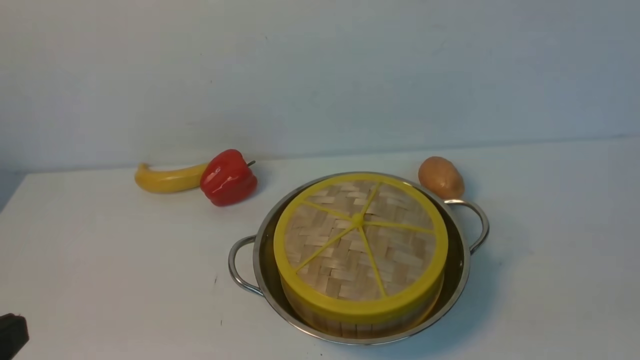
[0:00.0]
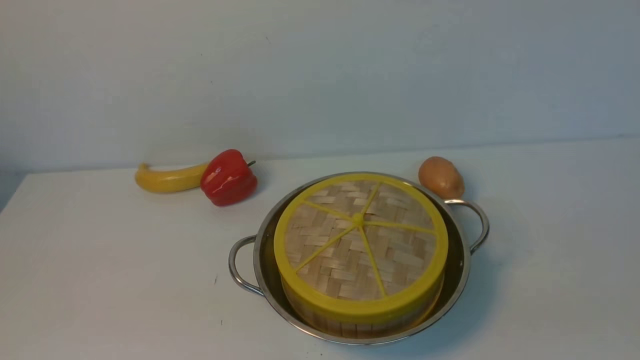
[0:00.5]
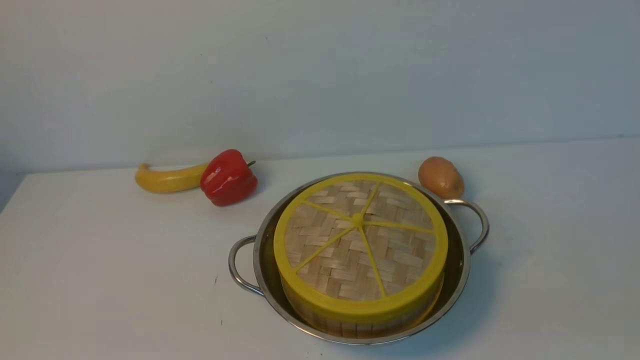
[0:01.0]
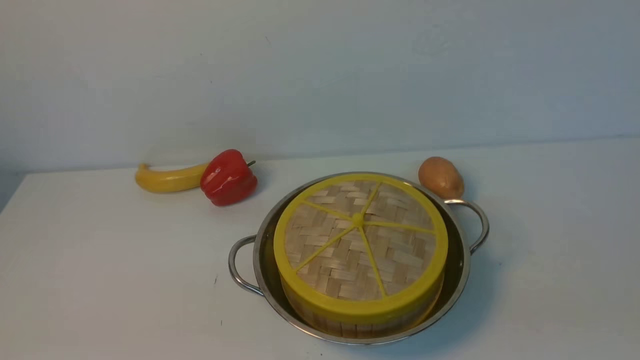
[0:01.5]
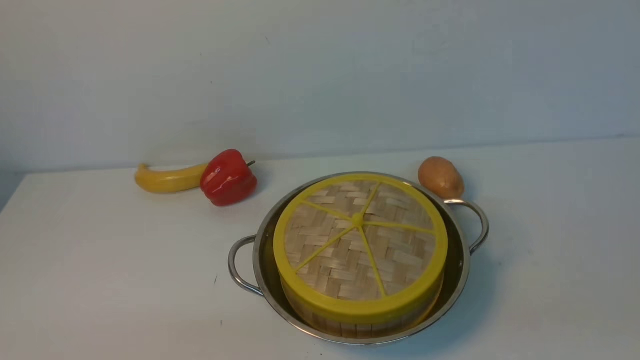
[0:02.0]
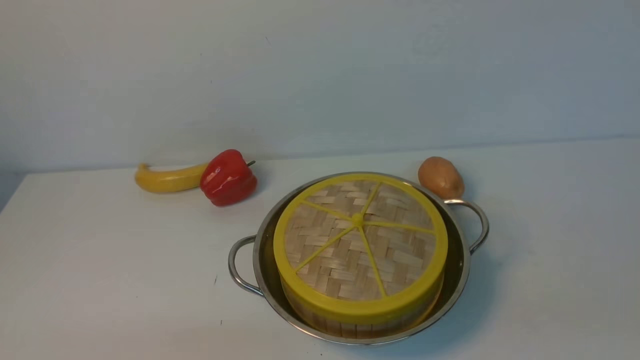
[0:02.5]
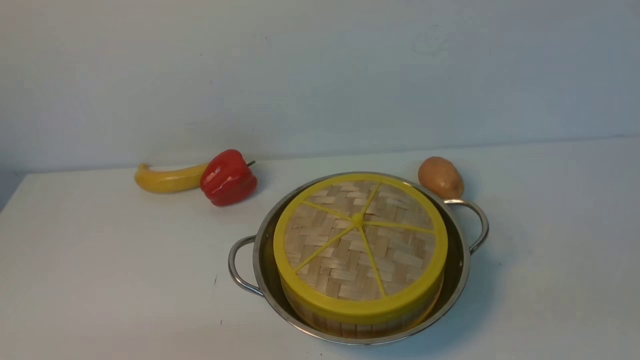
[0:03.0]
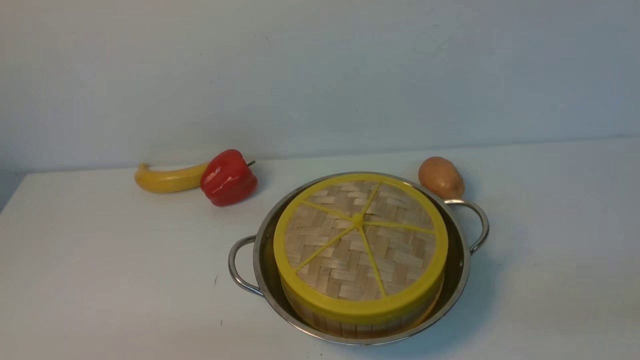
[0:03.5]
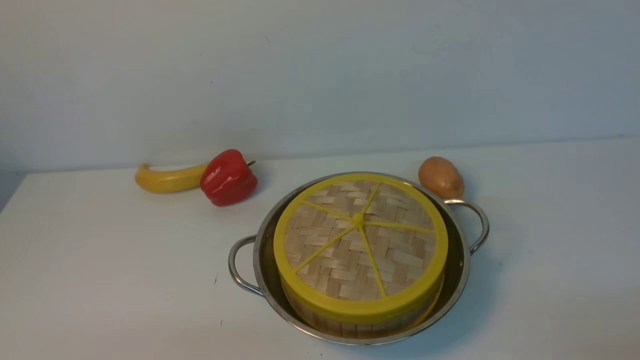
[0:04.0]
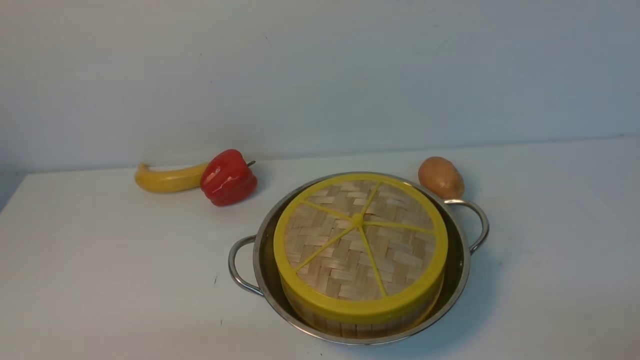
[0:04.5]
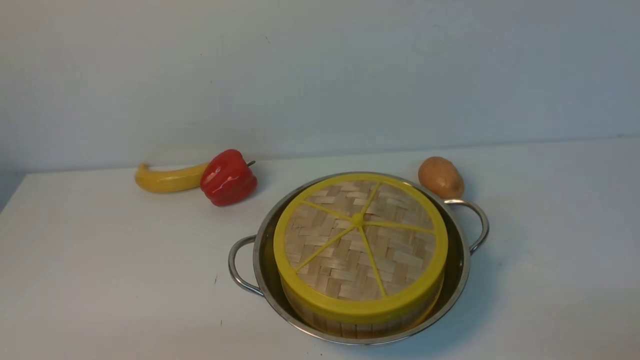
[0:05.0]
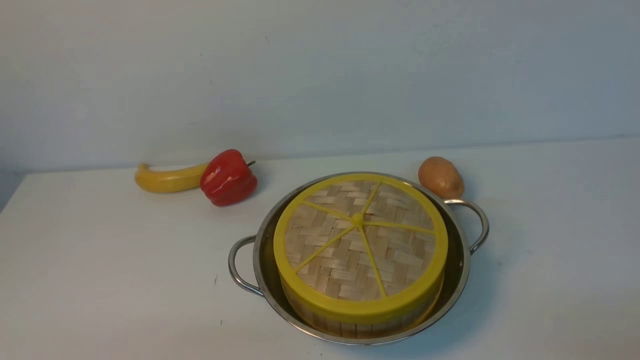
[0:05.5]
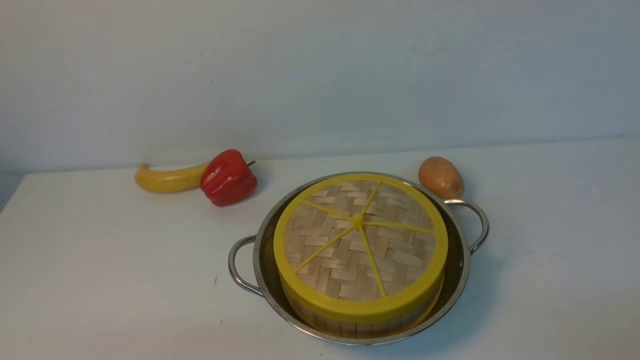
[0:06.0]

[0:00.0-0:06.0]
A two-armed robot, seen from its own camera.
Task of the whole recording: place the steamer in the pot on the white table, and put the lid on the steamer.
0:04.0 to 0:06.0: Both grippers stay put.

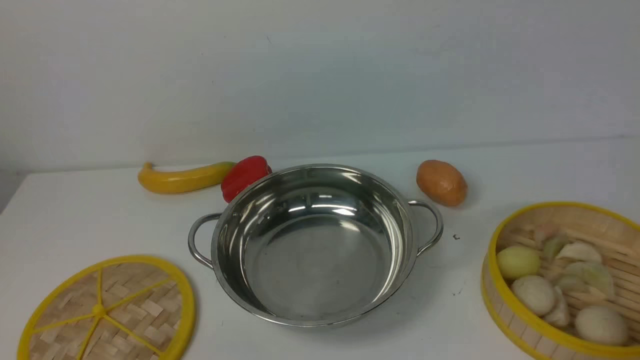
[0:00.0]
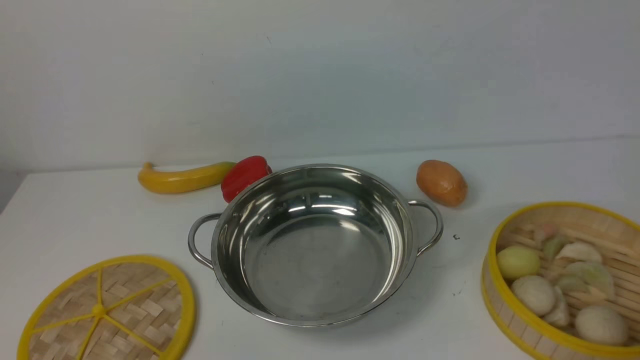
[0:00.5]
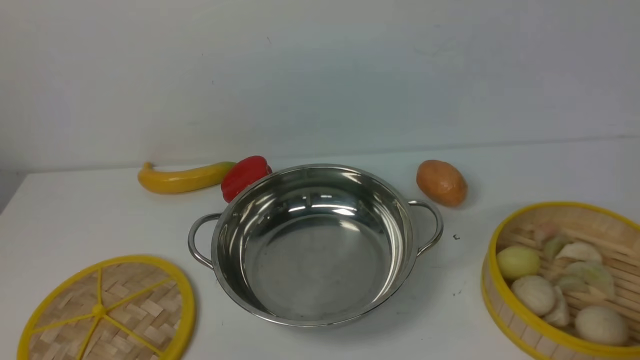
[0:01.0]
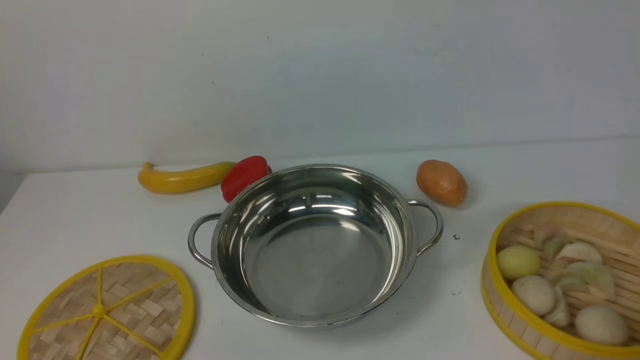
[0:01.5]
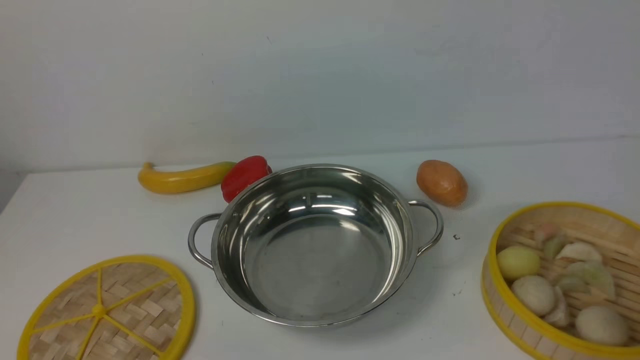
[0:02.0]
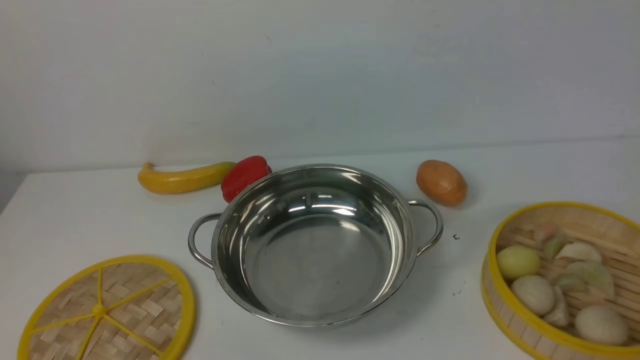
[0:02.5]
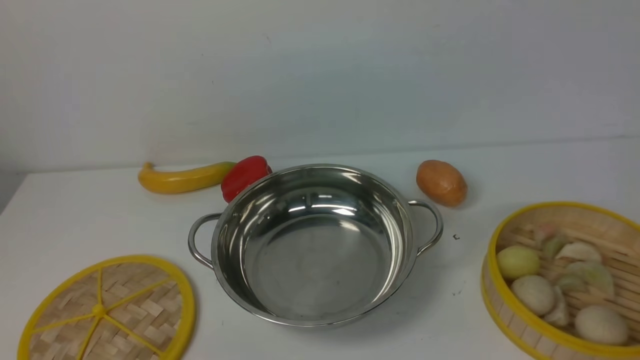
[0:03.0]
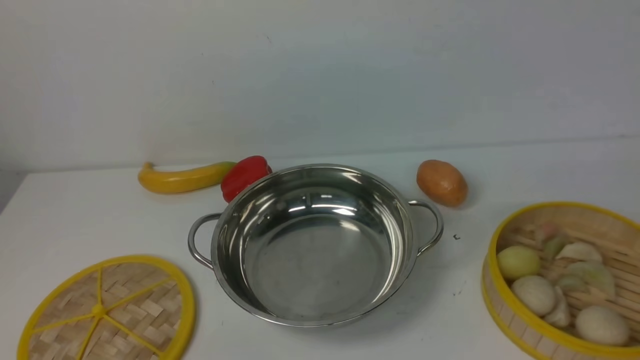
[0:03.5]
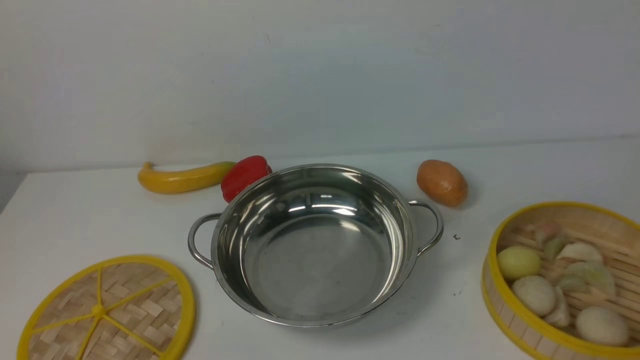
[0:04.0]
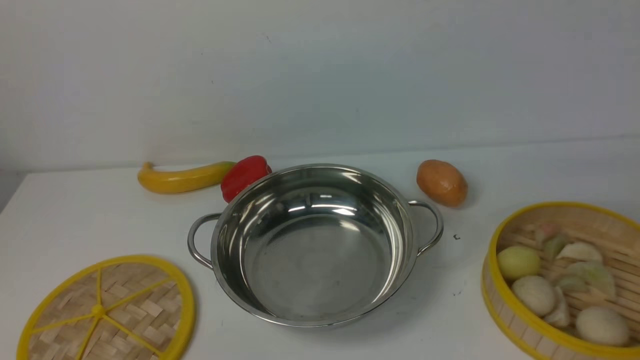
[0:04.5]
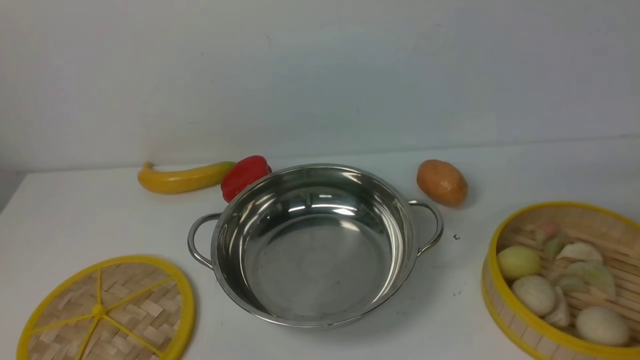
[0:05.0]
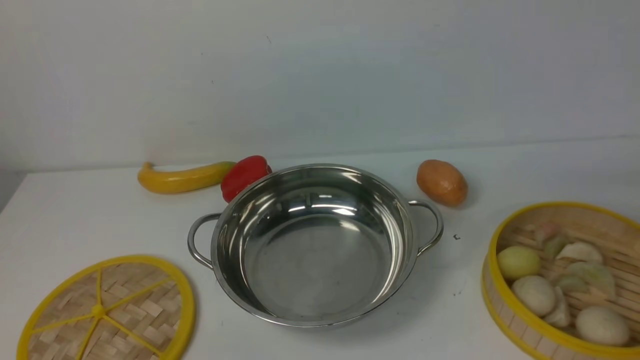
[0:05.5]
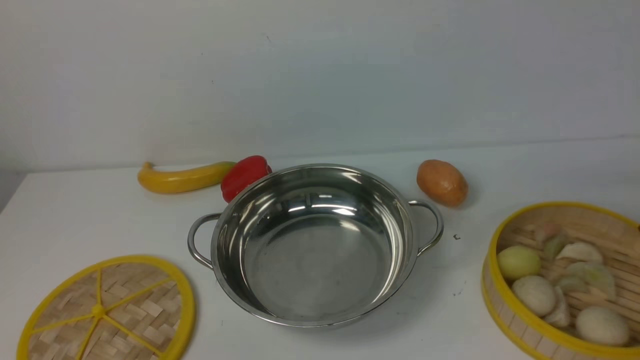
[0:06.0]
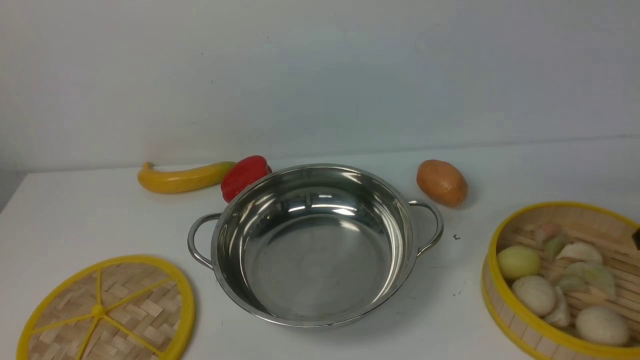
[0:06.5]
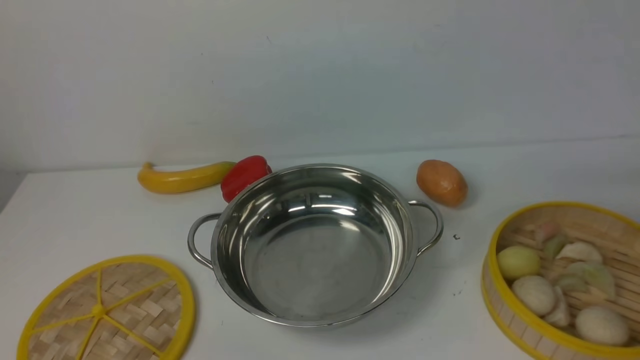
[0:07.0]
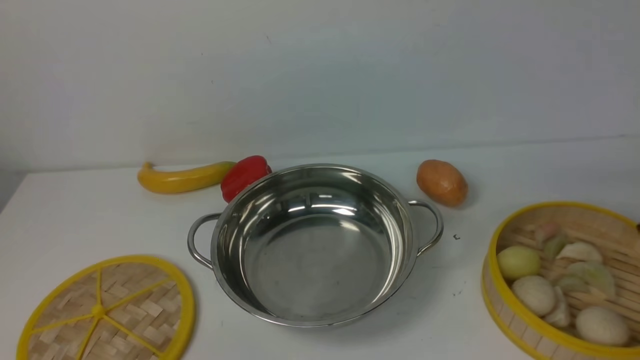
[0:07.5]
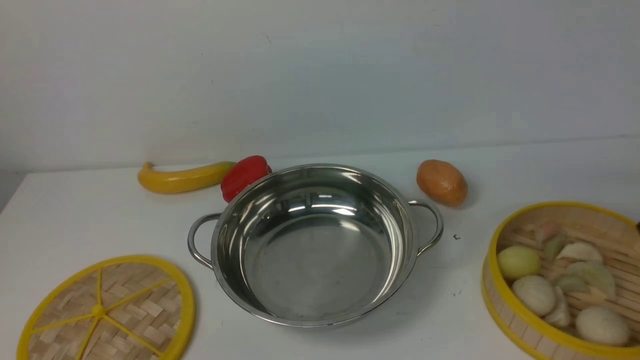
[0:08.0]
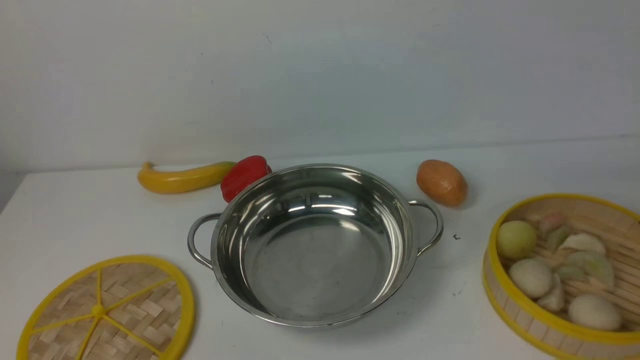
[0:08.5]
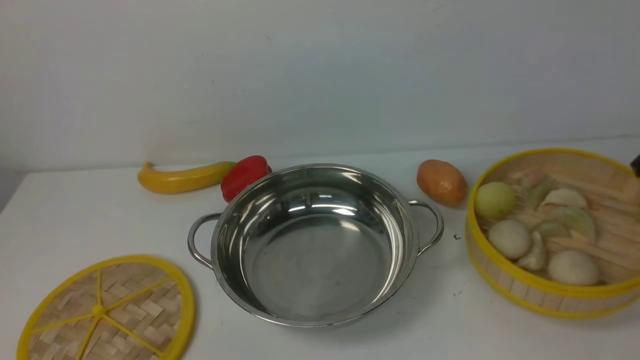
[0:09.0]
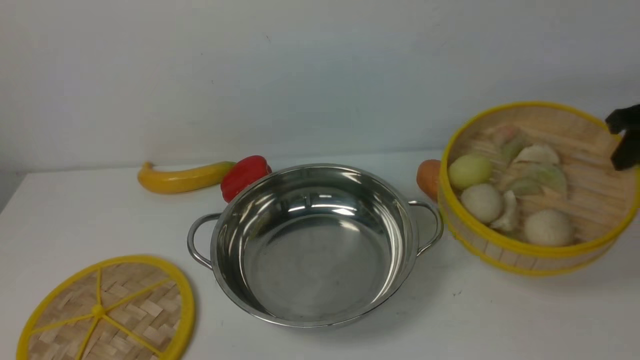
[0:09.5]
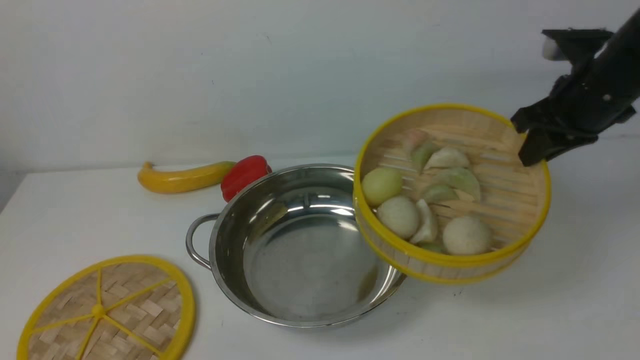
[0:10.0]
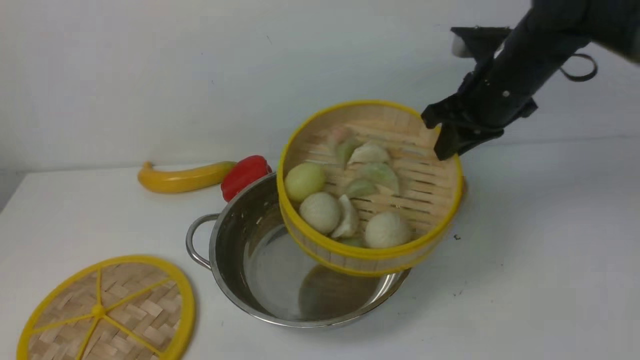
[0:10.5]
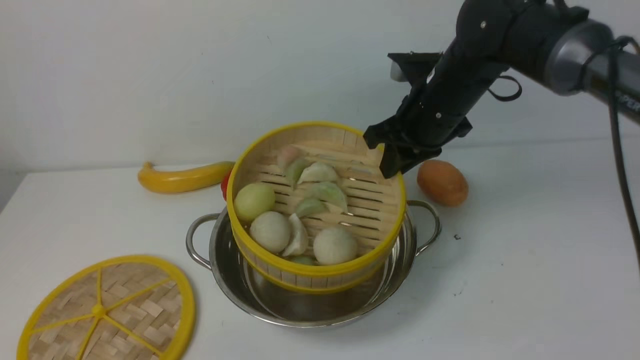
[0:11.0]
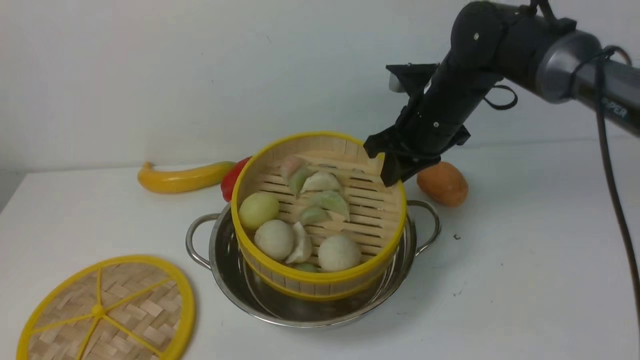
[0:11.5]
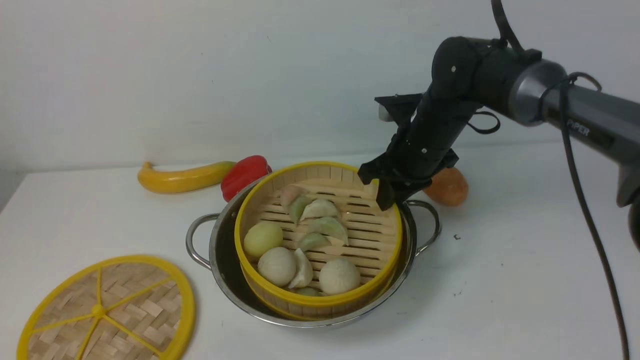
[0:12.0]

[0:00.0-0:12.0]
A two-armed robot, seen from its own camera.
Task of the whole recording: place the steamer in the pot on the white table, and put the lid on the steamer.
Step, 0:00.0 to 0:09.5: use the right arm to lift the steamer closest to it.
0:08.0 to 0:10.0: The right gripper is displaced to the left, upward and forward by about 20 cm.
0:10.0 to 0:12.0: The right gripper heads to the left and downward, covering approximately 15 cm.

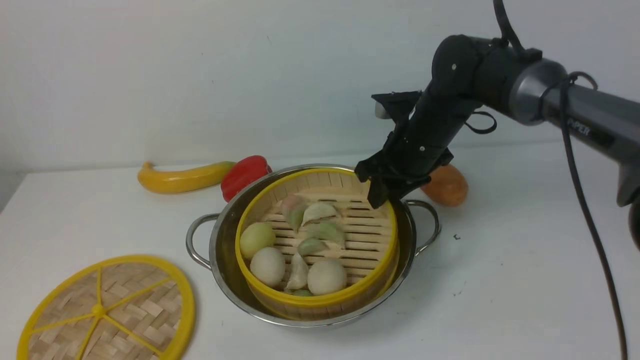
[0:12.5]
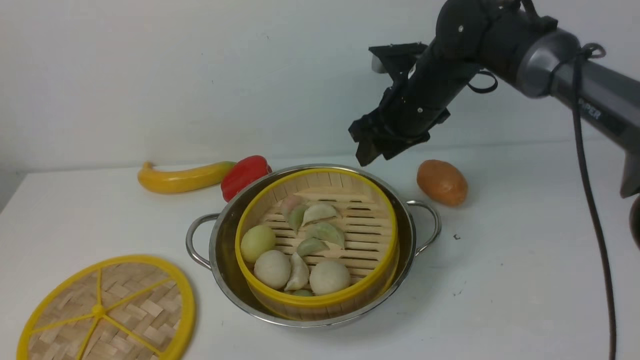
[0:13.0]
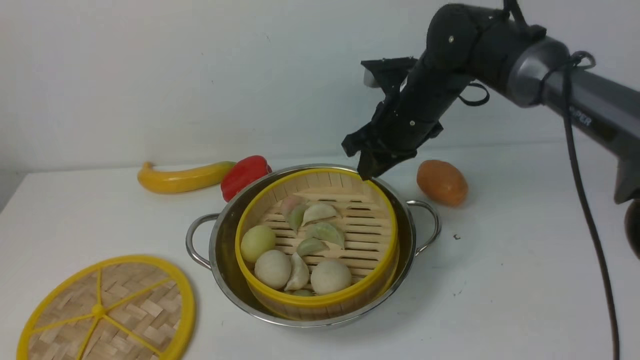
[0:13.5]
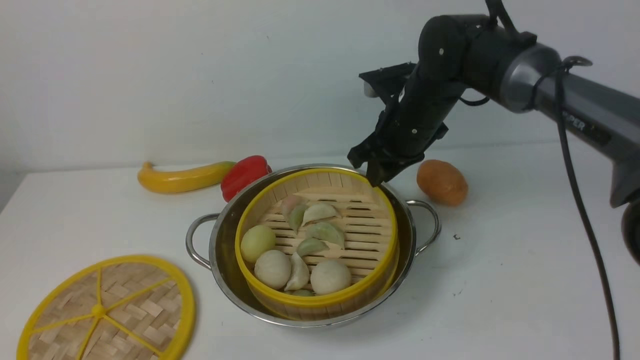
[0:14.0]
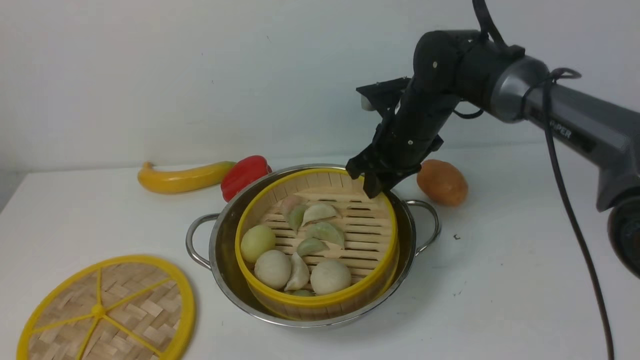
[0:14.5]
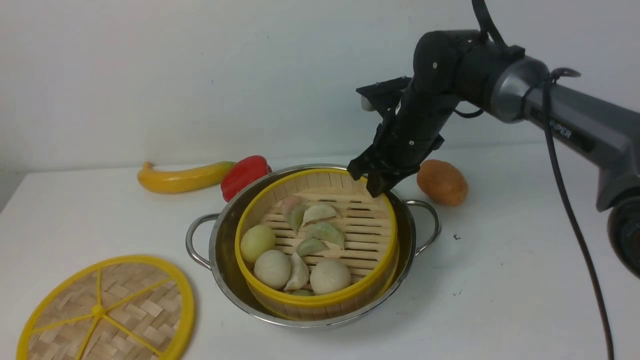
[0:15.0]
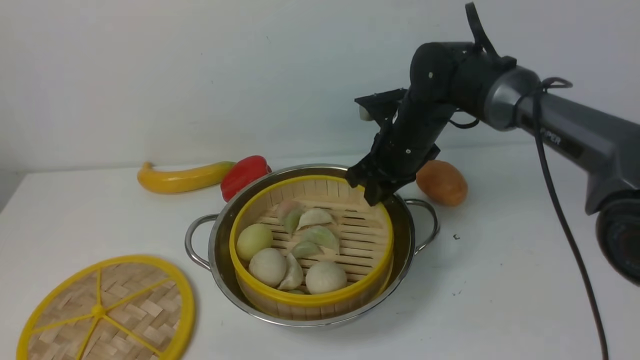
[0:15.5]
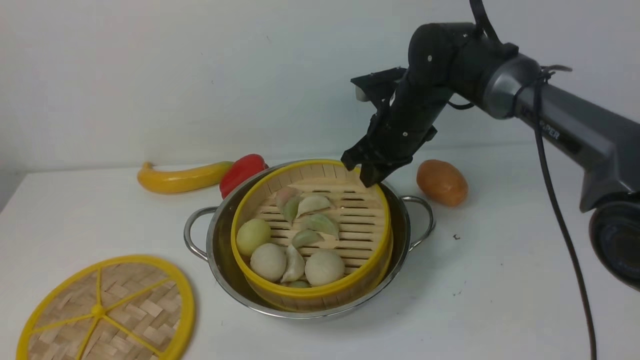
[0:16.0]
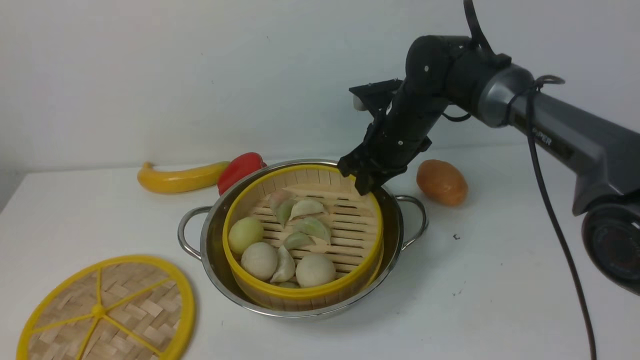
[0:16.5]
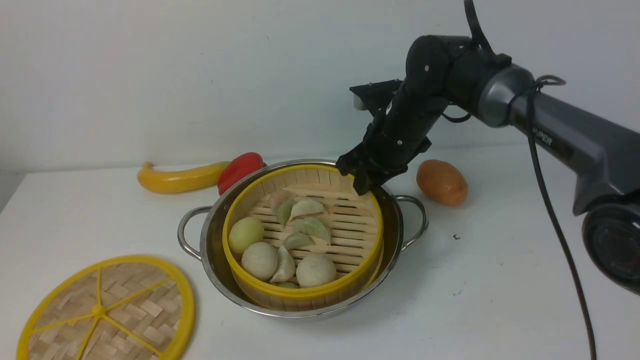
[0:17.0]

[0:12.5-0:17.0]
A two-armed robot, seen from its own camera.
Task of the whole recording: place the steamer in the pot on the white table, and put the lid on the steamer.
0:12.5 to 0:17.0: There are only small adjustments of the grippers.
